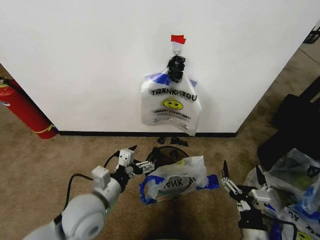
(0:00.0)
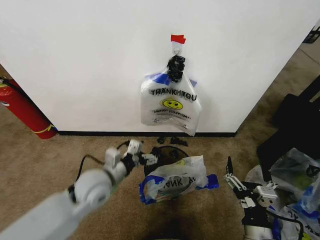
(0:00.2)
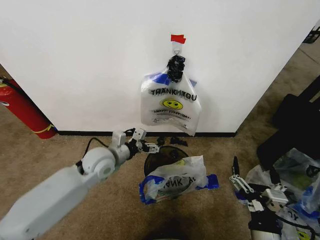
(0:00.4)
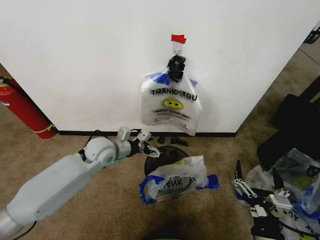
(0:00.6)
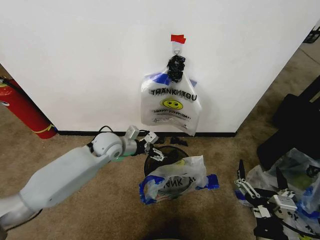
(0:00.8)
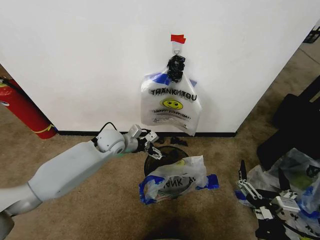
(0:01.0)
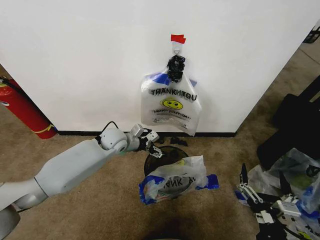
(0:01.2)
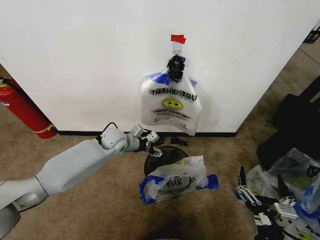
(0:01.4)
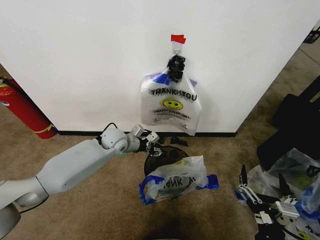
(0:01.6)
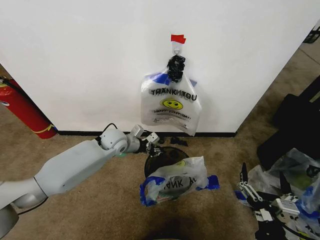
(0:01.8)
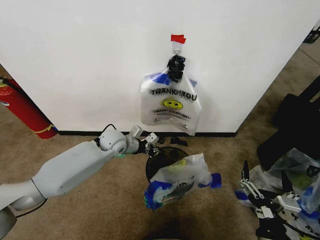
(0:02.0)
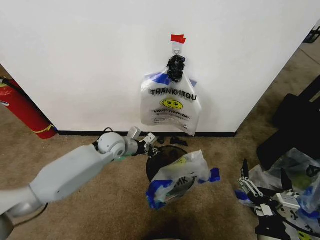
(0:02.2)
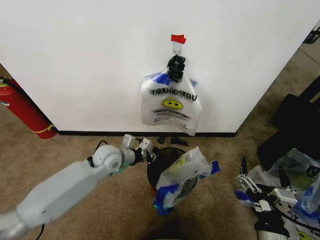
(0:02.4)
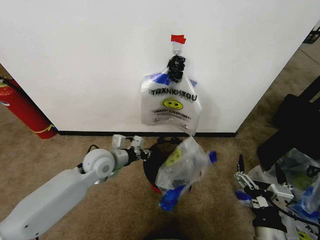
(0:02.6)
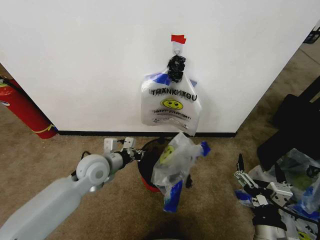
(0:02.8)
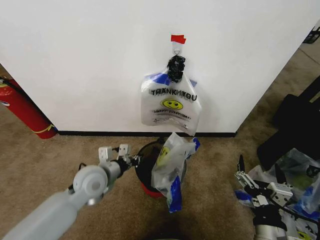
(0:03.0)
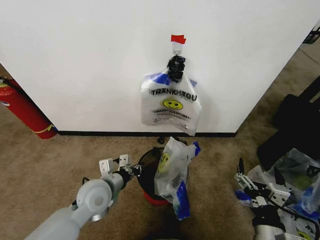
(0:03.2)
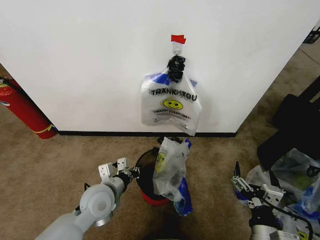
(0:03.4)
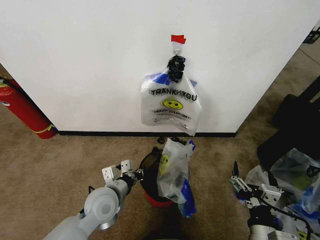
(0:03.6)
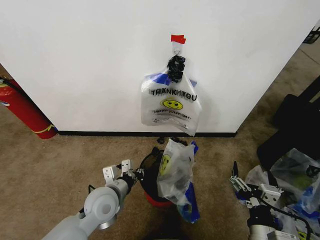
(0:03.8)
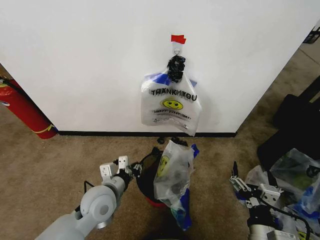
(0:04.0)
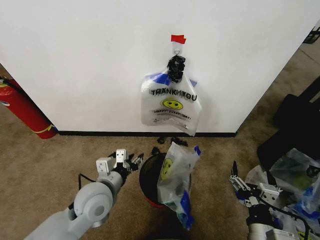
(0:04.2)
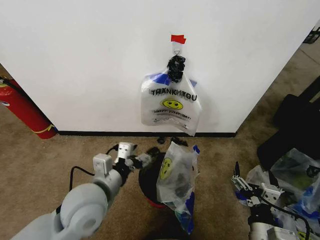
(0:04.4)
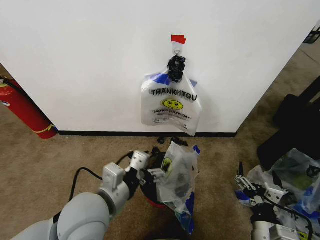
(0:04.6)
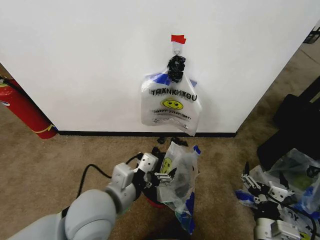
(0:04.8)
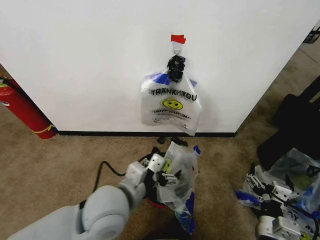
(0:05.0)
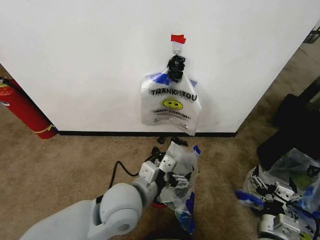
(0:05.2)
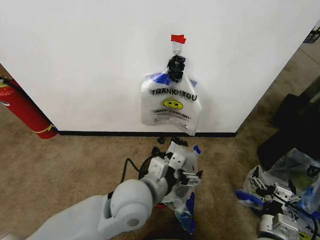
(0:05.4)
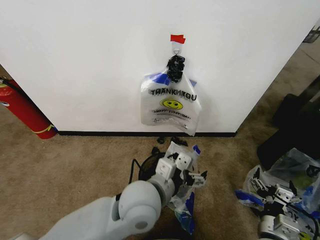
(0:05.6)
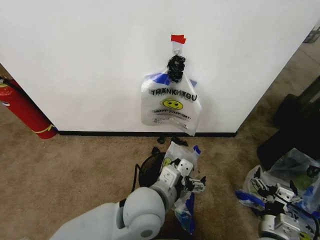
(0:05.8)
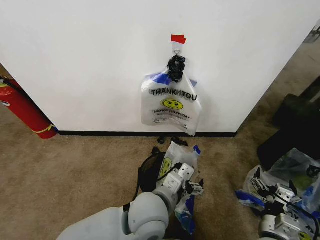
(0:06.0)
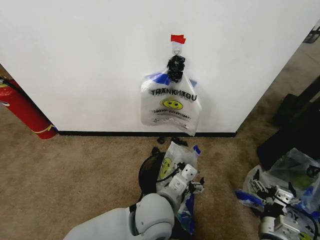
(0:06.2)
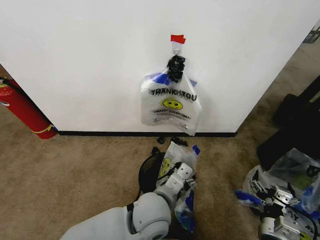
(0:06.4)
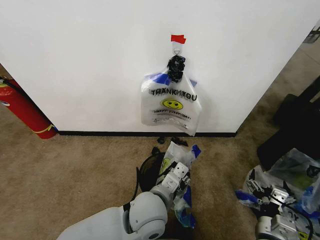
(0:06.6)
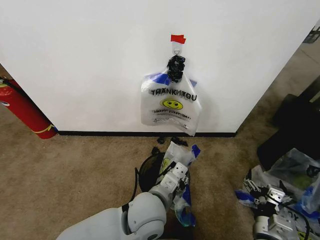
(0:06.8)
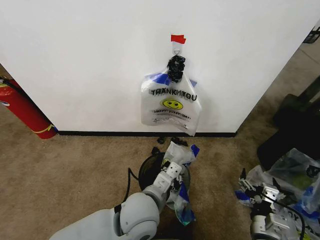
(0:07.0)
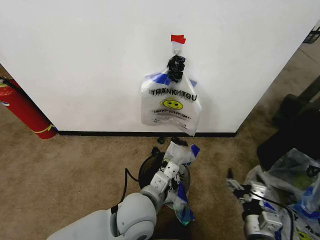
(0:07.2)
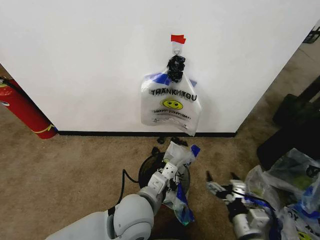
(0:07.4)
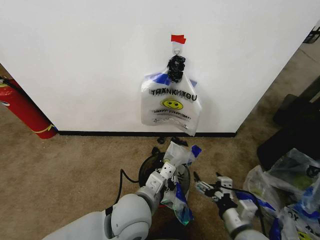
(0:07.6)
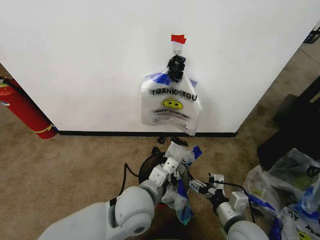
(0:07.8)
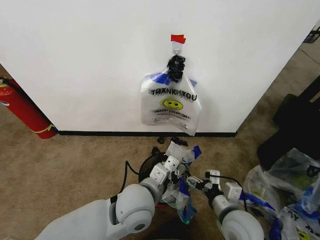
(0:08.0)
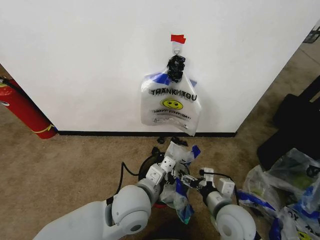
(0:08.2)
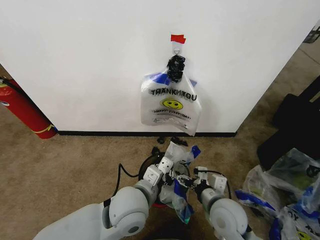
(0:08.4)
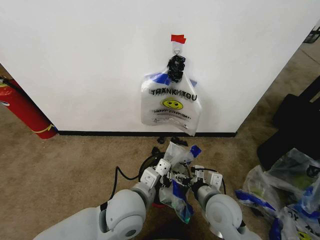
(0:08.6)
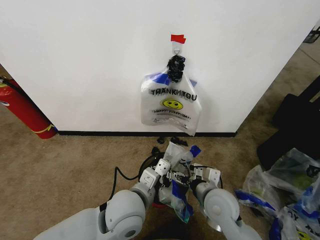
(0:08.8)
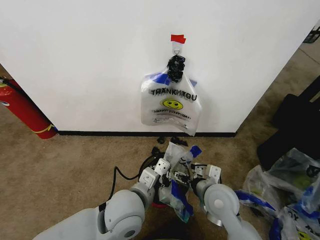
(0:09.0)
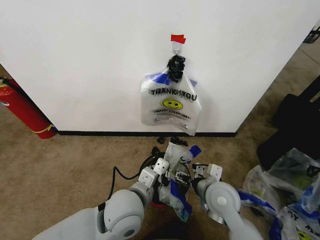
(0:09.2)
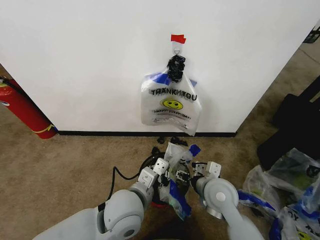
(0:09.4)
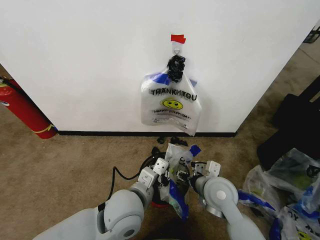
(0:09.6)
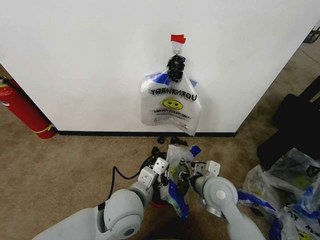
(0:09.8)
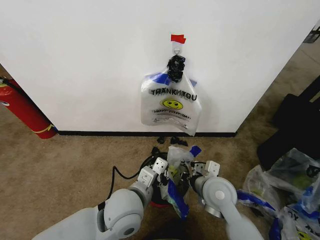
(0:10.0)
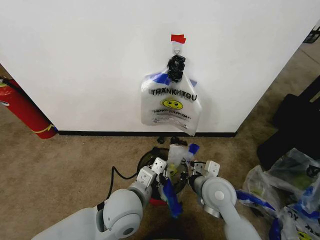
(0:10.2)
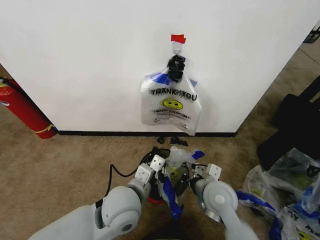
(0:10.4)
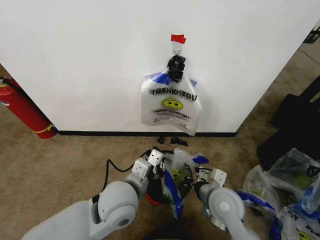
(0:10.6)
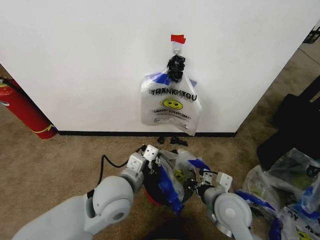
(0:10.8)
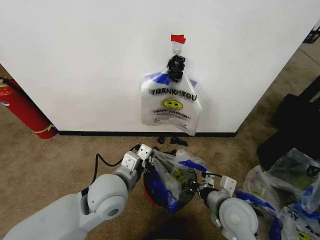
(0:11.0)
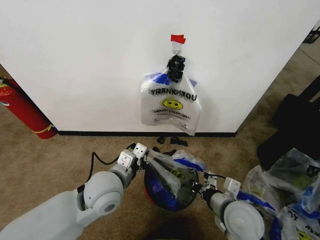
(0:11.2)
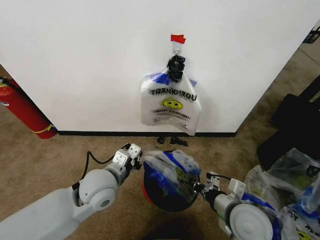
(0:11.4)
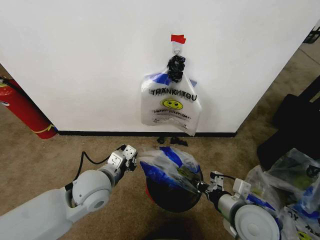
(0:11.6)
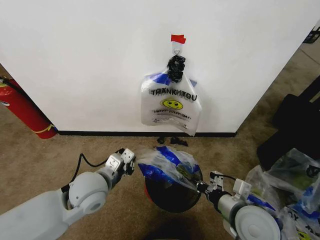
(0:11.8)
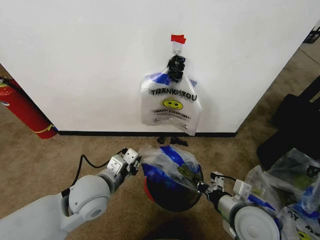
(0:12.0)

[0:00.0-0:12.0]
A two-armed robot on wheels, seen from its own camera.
Task of the whole recording: Pick up the garbage bag from the wall and place it over the trash bin.
0:00.0 to 0:01.6: The left gripper goes about 30 cm forward, and closes its fingers, while the right gripper goes some 5 cm upward.
0:01.6 to 0:03.0: The left gripper closes up.
0:03.0 to 0:04.4: The left gripper heads backward, covering approximately 15 cm, and opens up.
0:04.4 to 0:06.0: The right gripper shifts by approximately 5 cm; the left gripper is displaced upward and to the right by about 15 cm.
0:06.0 to 0:07.6: The left gripper shifts by roughly 5 cm, and closes up.
0:07.6 to 0:09.0: The right gripper moves to the left and forward, approximately 10 cm.
0:09.0 to 0:10.4: The right gripper moves forward, some 5 cm, and closes its fingers.
0:10.4 to 0:12.0: The right gripper is displaced backward and to the right by about 10 cm, while the left gripper heads to the left and forward, covering approximately 10 cm.

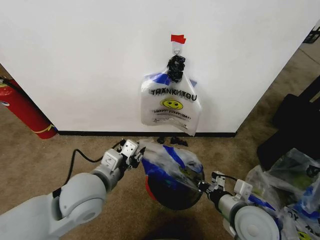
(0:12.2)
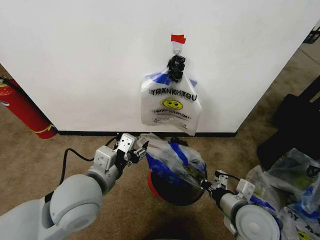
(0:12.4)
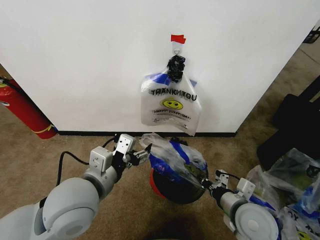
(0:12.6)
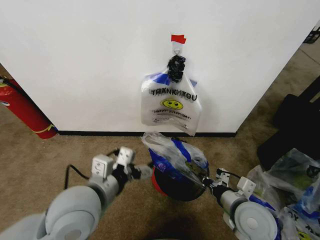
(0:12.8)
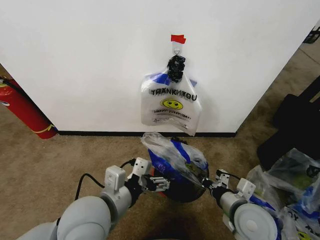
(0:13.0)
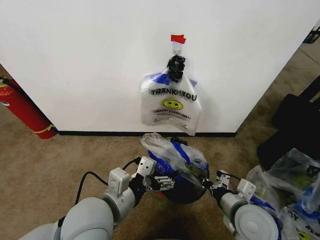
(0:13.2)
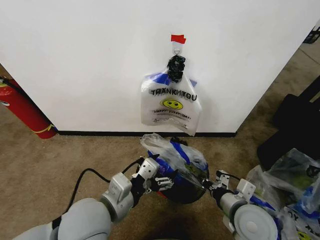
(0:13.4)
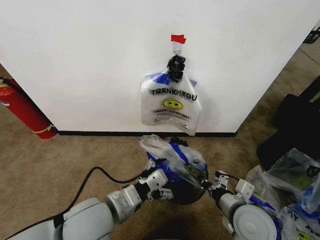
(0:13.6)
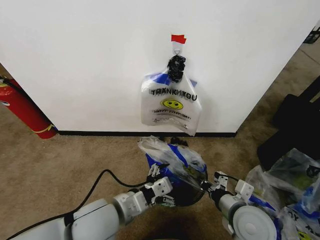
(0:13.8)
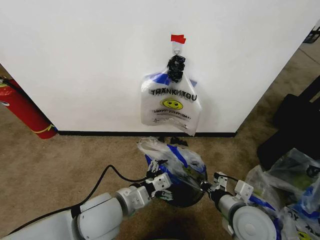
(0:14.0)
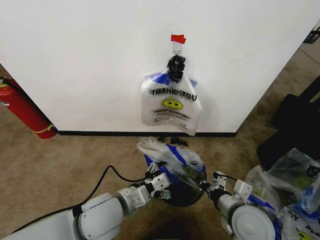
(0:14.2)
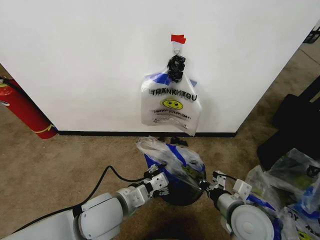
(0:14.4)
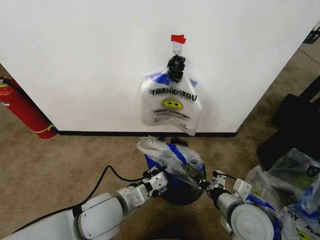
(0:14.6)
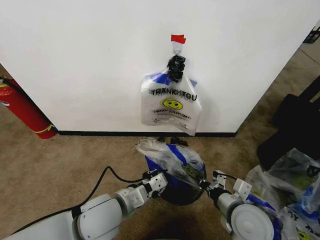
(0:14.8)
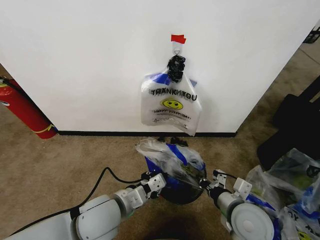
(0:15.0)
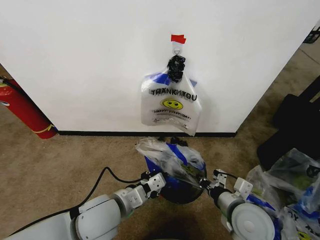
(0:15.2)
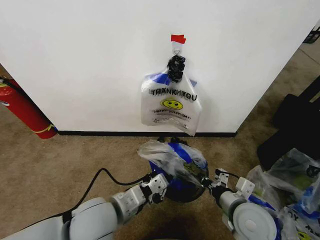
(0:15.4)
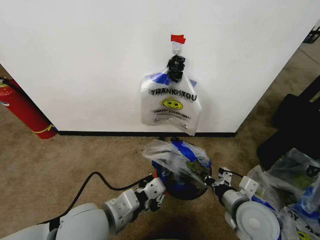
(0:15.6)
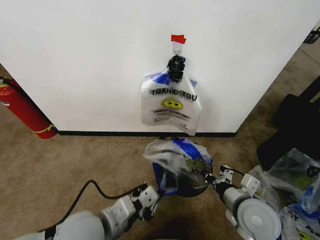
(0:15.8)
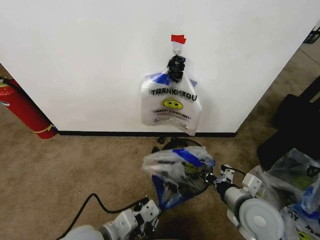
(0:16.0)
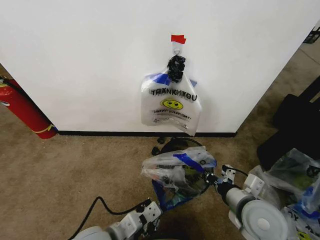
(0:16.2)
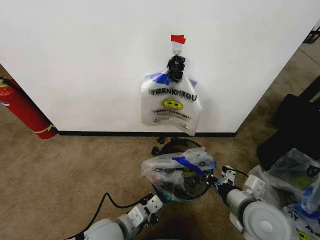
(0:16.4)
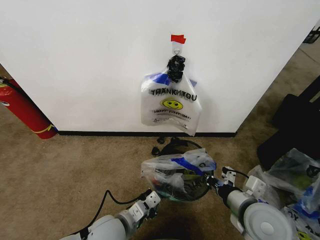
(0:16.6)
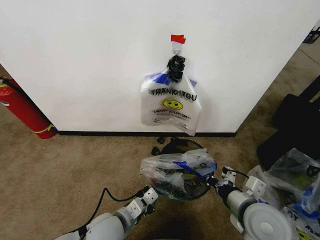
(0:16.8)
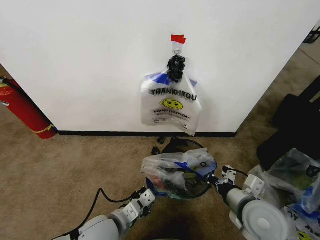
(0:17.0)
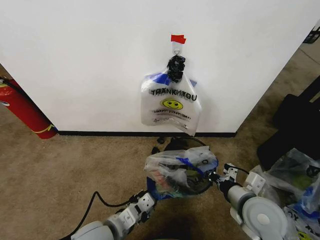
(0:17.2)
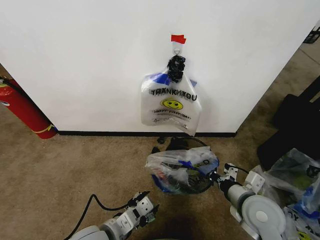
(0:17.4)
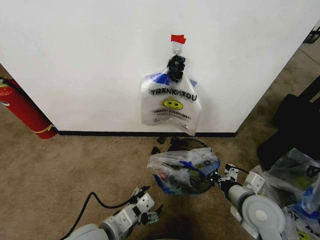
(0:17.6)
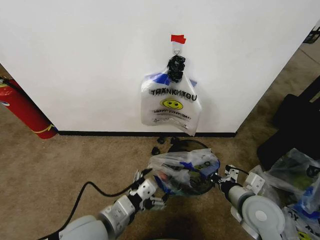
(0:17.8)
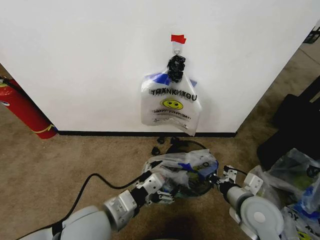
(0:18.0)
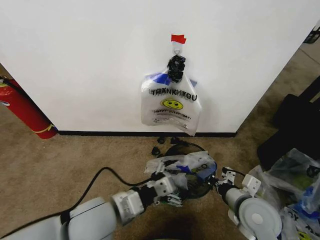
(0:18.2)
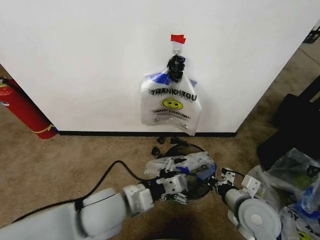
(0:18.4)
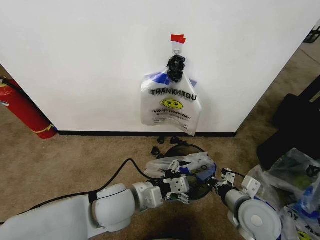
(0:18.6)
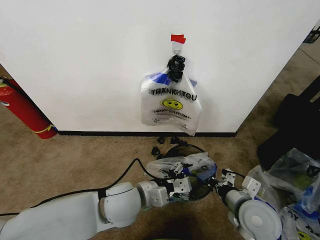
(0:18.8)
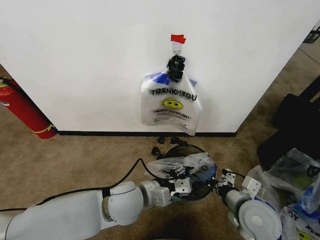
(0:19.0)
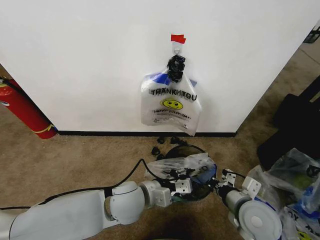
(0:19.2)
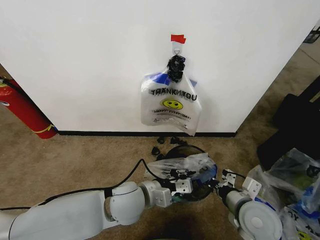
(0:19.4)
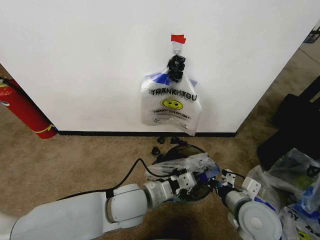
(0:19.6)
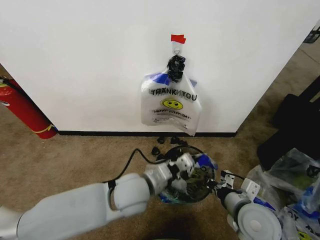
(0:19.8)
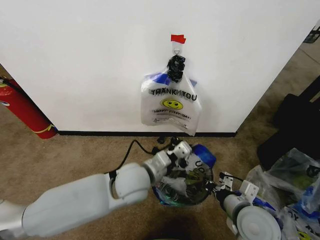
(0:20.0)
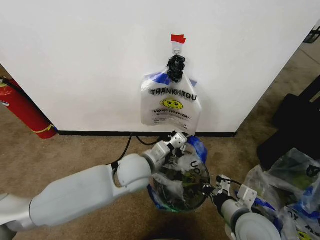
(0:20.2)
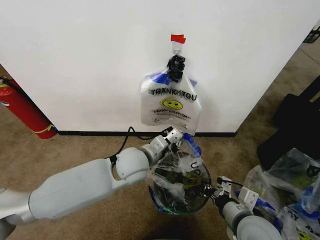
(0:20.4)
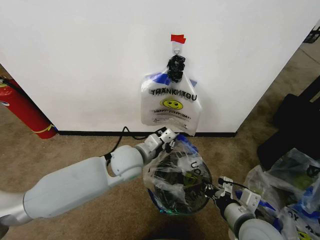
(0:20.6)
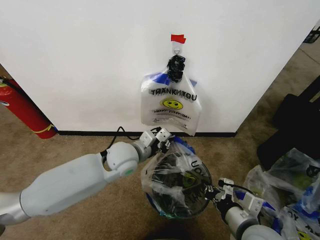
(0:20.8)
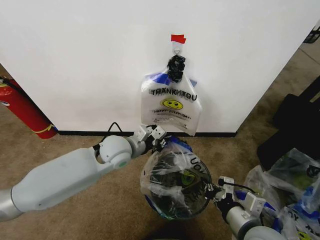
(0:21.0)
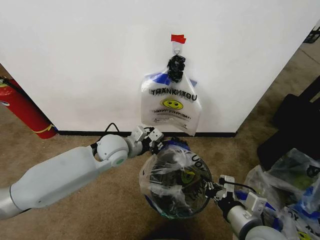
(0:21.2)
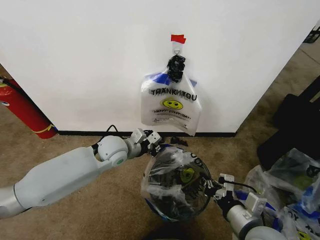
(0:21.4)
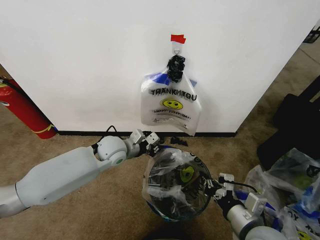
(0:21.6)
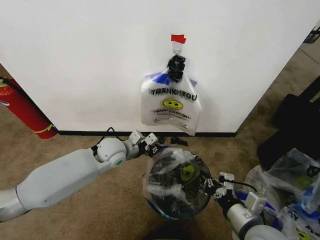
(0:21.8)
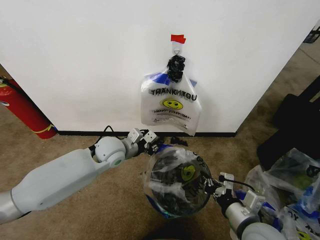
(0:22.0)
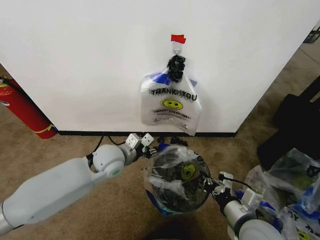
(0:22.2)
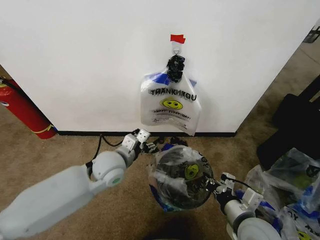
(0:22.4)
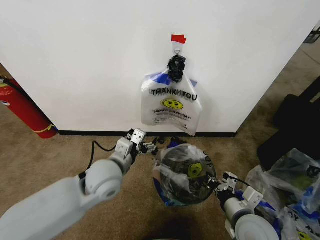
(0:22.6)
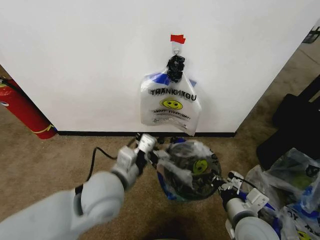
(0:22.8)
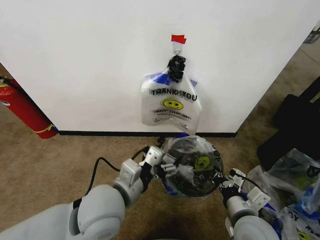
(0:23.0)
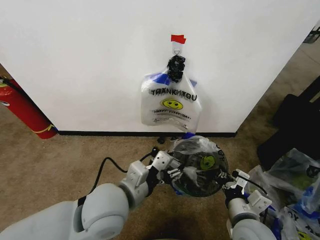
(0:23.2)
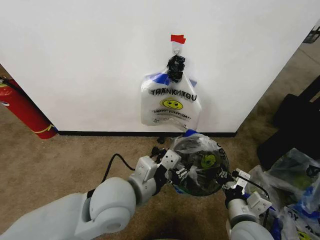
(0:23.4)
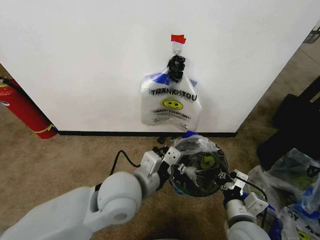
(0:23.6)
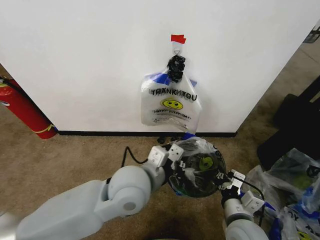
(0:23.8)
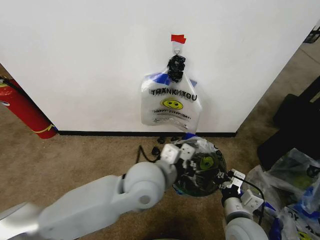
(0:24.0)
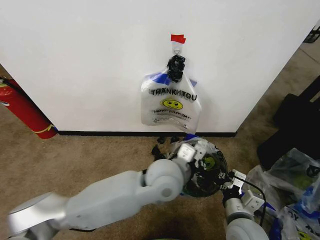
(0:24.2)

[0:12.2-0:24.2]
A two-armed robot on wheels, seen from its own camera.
Task of the whole recording: Pick up the garbage bag from the wall and place it over the trash bin.
0:12.2 to 0:13.8: The left gripper heads backward, covering approximately 10 cm, and opens its fingers.
0:13.8 to 0:15.2: The left gripper closes its fingers.
0:15.2 to 0:16.6: The left gripper goes about 10 cm downward.
0:16.6 to 0:18.2: The left gripper is displaced upward by roughly 10 cm, and opens up.
0:18.2 to 0:19.8: The left gripper goes roughly 10 cm to the right and forward, and closes up.
0:19.8 to 0:21.2: The right gripper is displaced backward by approximately 5 cm, while the left gripper is displaced forward and to the left by about 15 cm.
0:21.2 to 0:22.6: The left gripper travels backward by roughly 10 cm, and opens up.
0:22.6 to 0:24.2: The left gripper shifts some 15 cm to the right, and closes its fingers.
